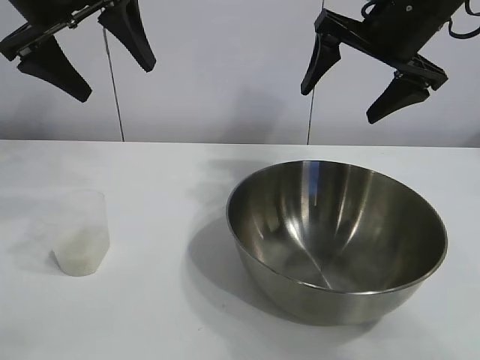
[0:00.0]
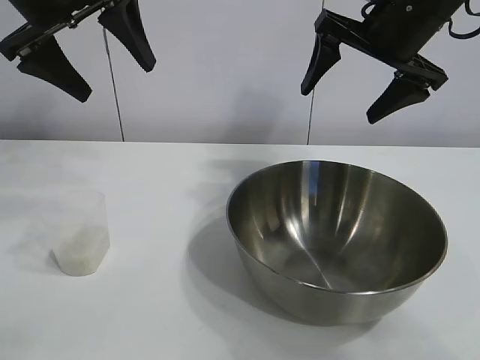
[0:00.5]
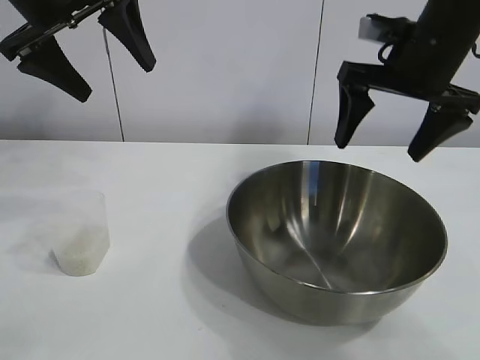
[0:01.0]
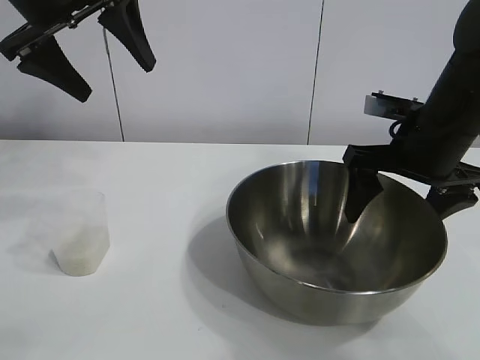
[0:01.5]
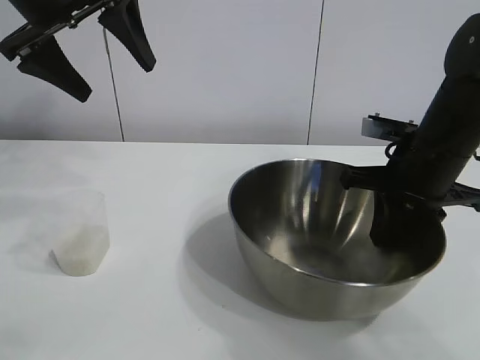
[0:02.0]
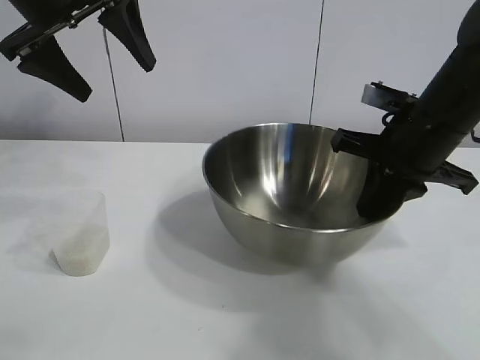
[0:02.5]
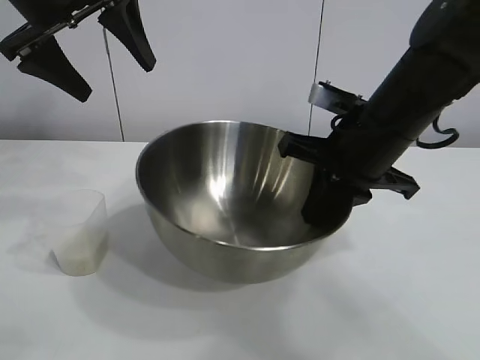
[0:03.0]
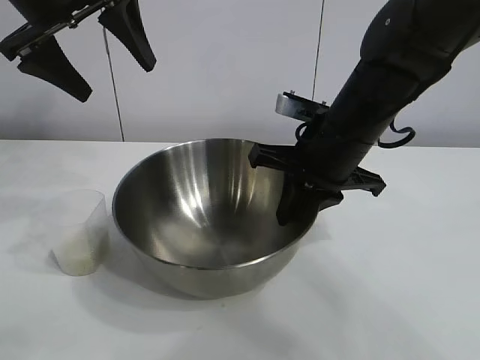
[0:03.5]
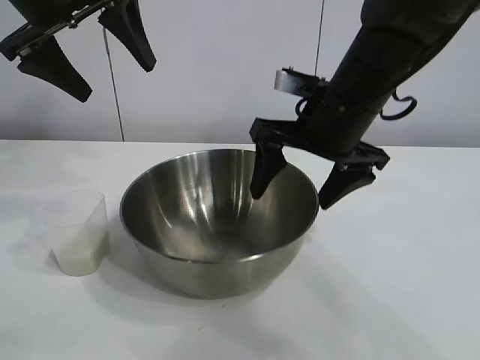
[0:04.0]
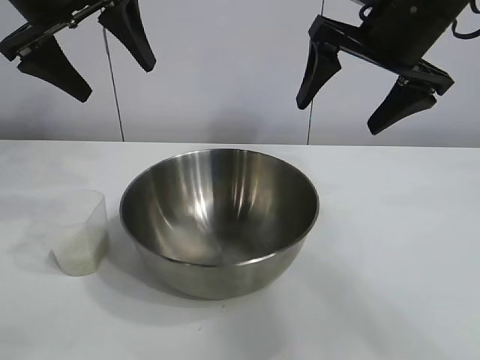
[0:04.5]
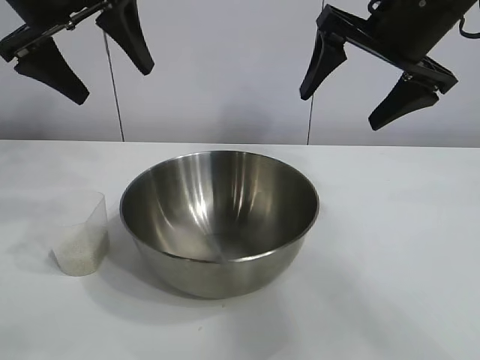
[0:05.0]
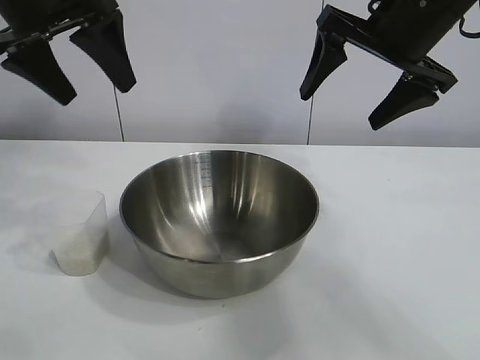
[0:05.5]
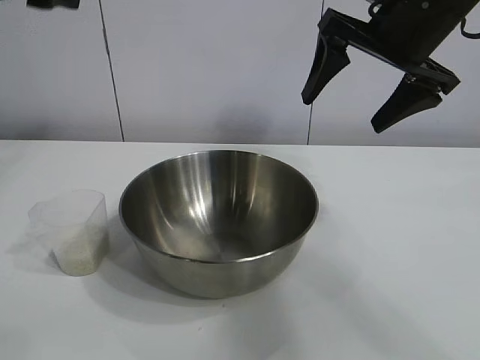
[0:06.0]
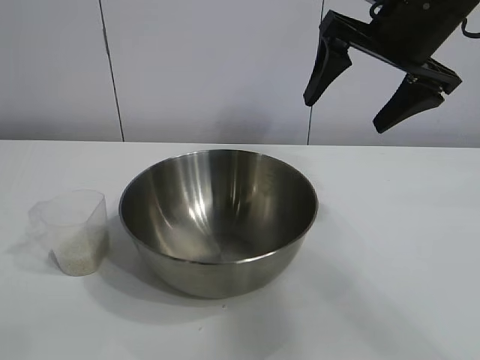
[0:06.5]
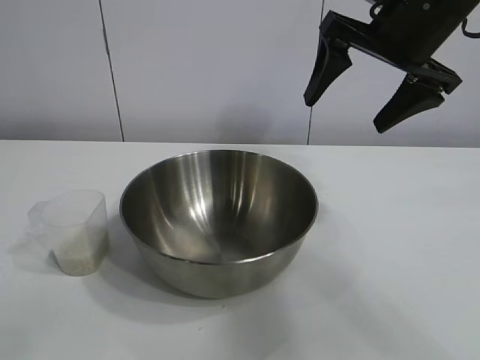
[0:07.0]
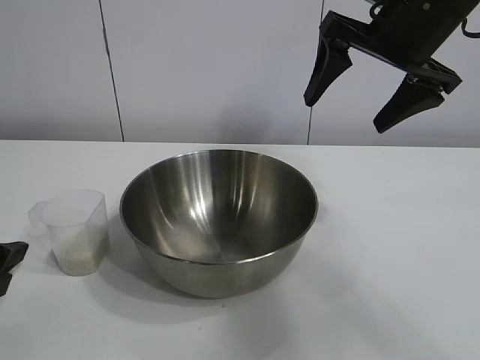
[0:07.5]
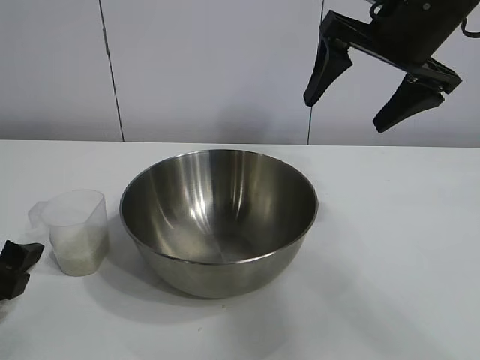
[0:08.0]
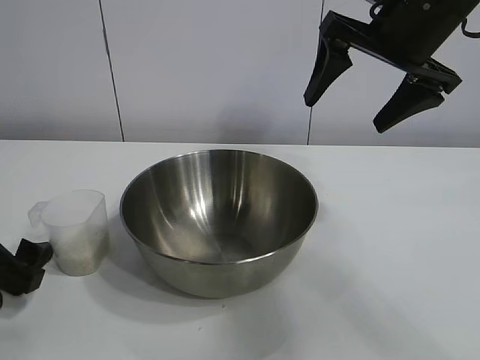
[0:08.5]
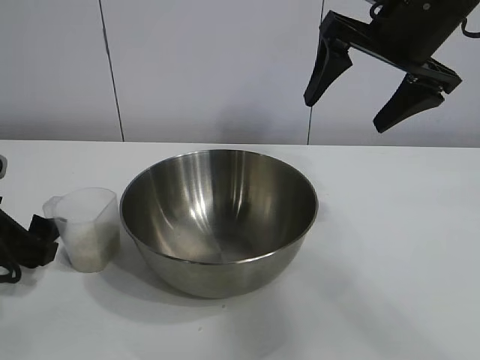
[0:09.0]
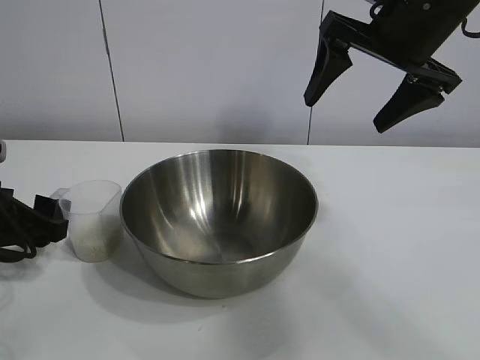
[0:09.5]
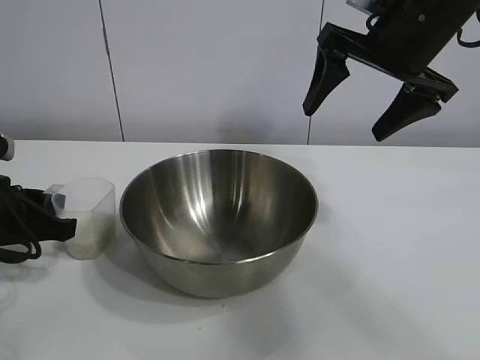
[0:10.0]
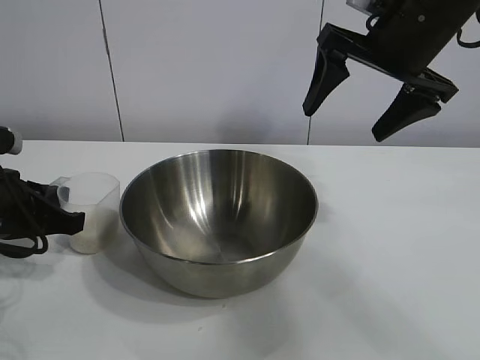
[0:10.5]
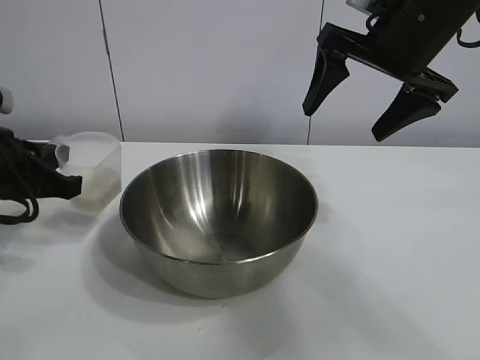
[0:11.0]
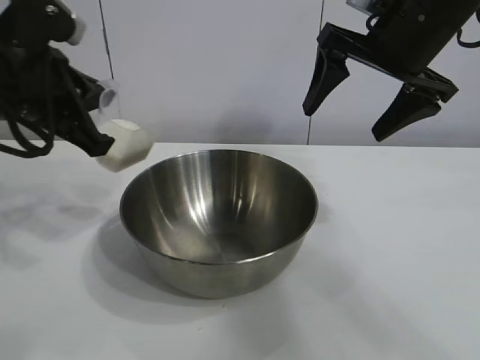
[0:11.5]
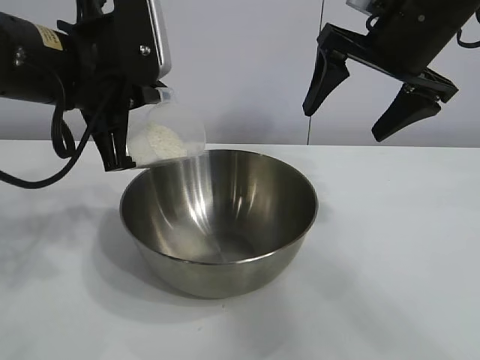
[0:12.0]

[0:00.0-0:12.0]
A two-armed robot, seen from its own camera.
Task of the whole recording: the right gripper grasp the rice container and place it in the center of the table, the left gripper grasp the rice scoop and pour the rice into the rice container.
Step, 0:01.0 to 0:03.5: Move the bowl in the center of view with right gripper.
Step, 0:04.0 to 0:10.0: Grasp the cup with rice in it with left gripper.

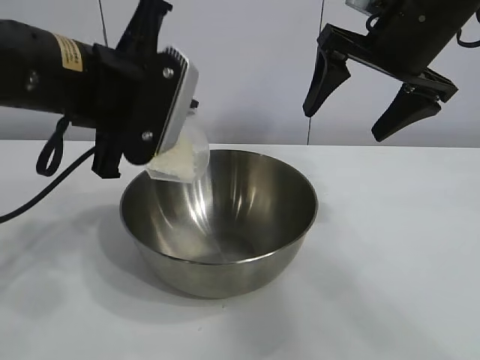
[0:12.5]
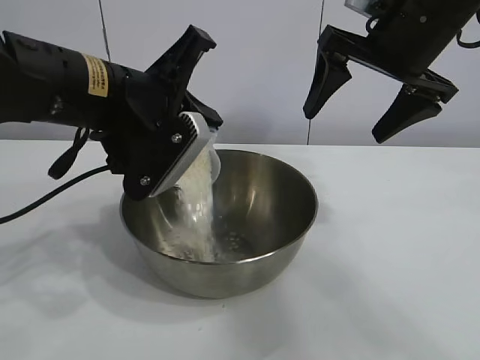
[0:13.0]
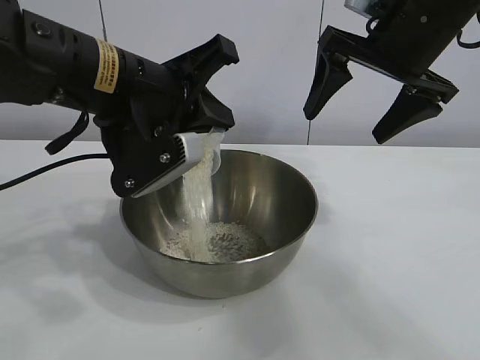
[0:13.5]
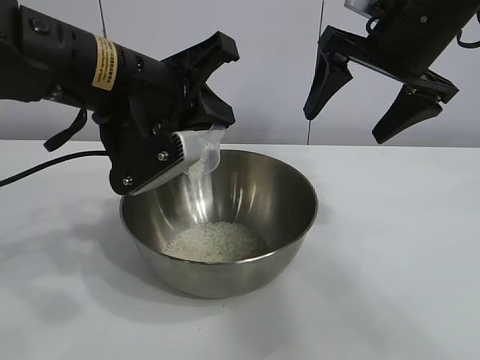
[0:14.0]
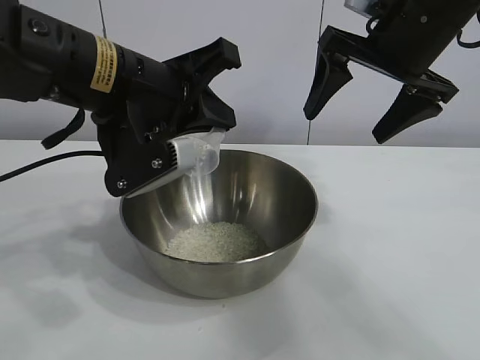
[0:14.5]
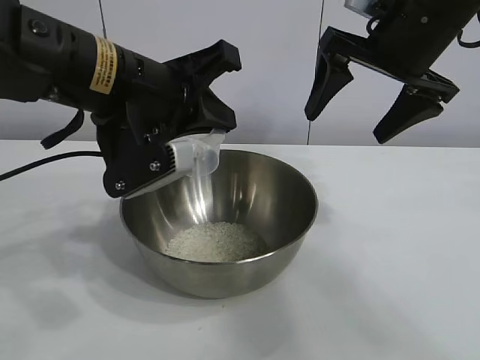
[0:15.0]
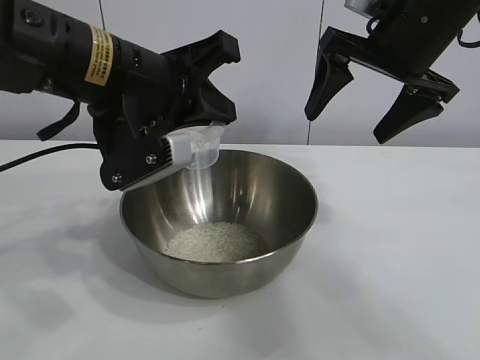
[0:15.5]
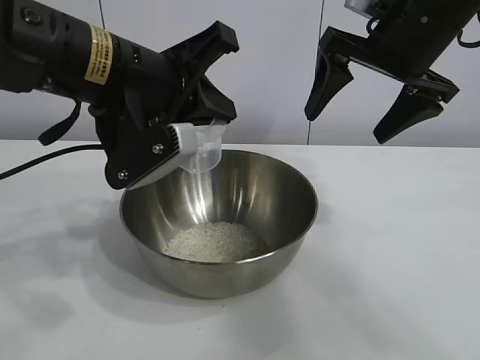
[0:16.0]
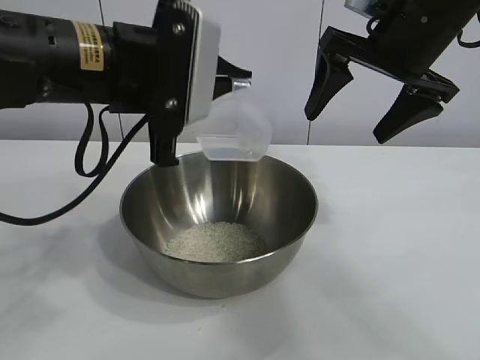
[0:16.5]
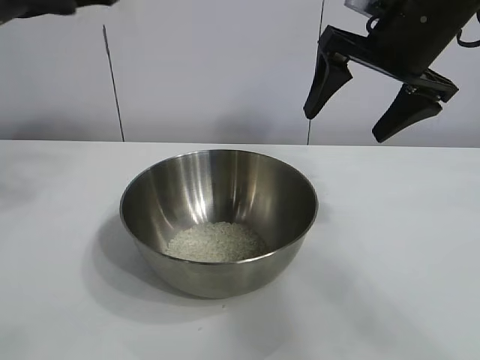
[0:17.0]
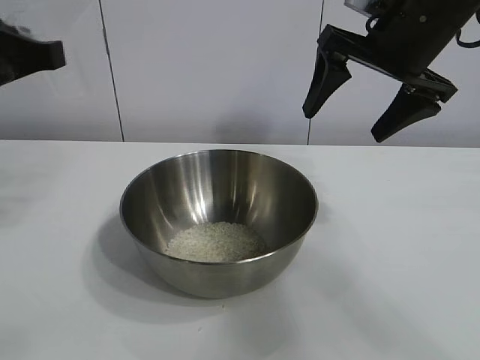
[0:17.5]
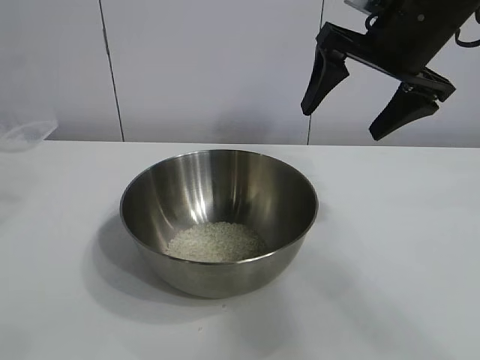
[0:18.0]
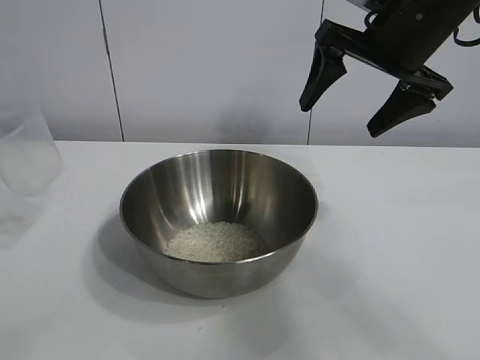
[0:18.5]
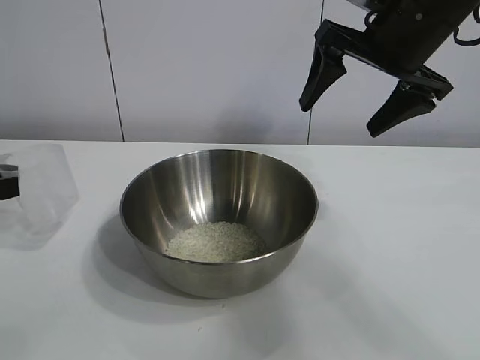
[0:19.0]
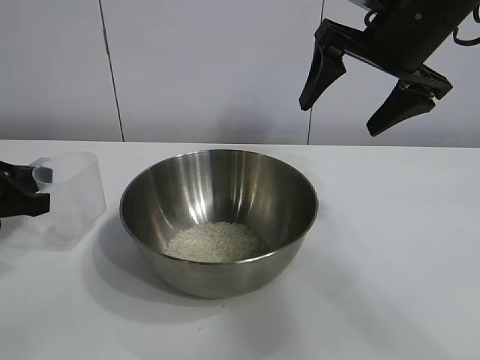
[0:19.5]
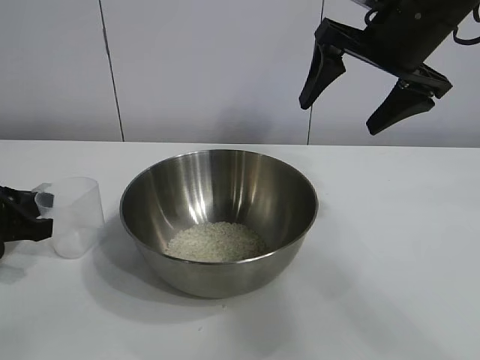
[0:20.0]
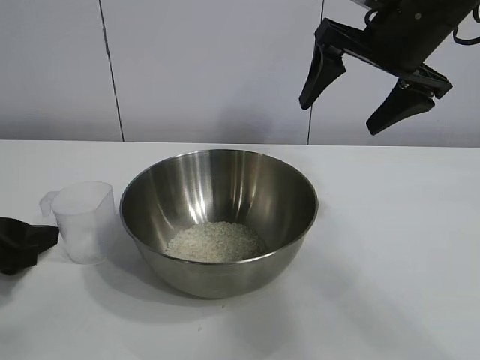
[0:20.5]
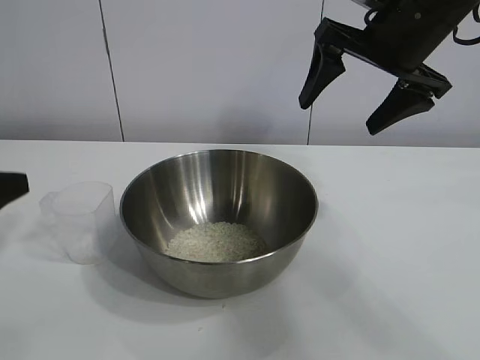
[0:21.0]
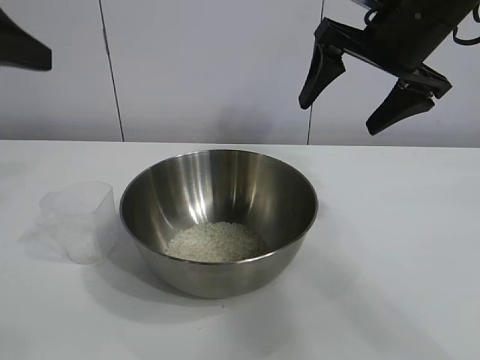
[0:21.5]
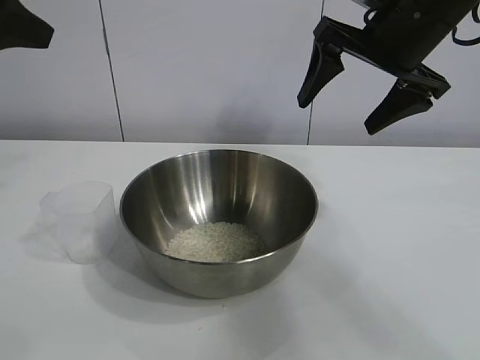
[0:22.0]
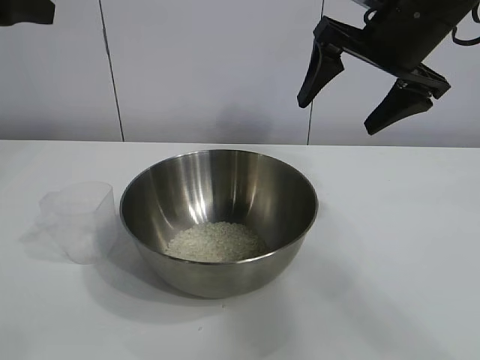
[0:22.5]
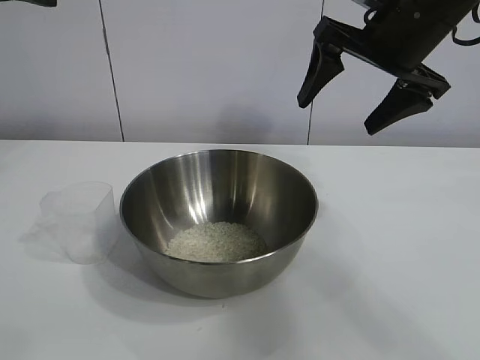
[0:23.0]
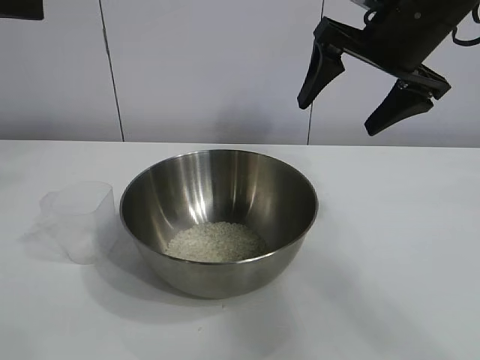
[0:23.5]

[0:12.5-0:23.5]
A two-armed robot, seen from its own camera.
Task of the whole recording: the right gripper grasp the rice container and place it in the center of the table, the left gripper grasp the rice scoop and pour the rice into the rice container.
Step, 0:12.5 to 0:15.0: Pour the rice from the cup into the bowl with the left gripper.
Step, 0:15.5 to 0:20.0: Place the cup on the table with the left gripper.
